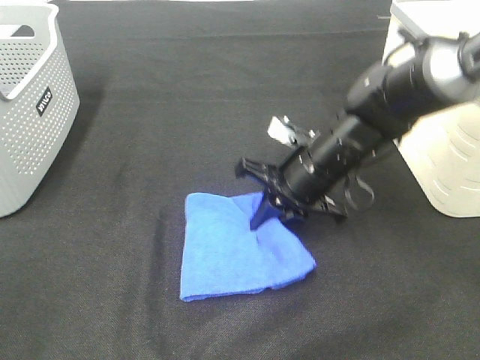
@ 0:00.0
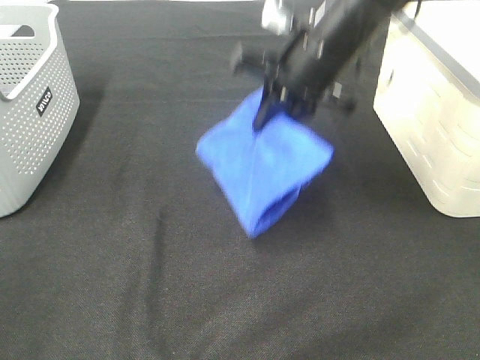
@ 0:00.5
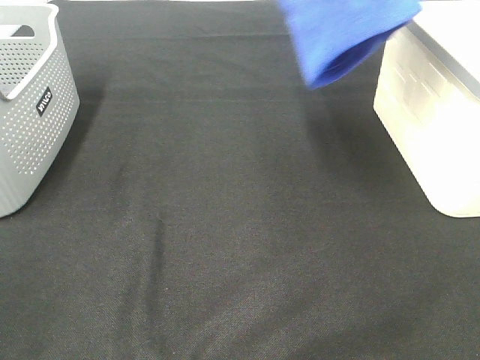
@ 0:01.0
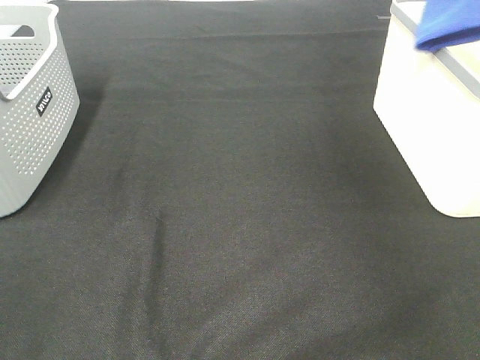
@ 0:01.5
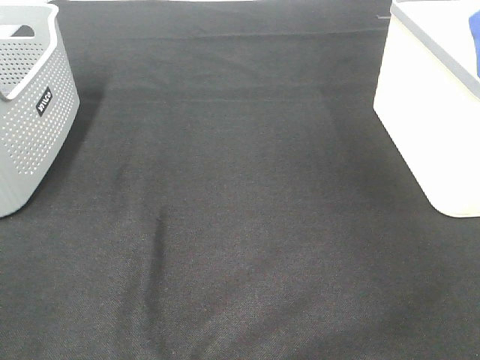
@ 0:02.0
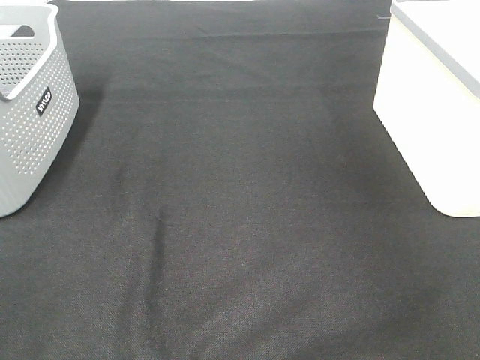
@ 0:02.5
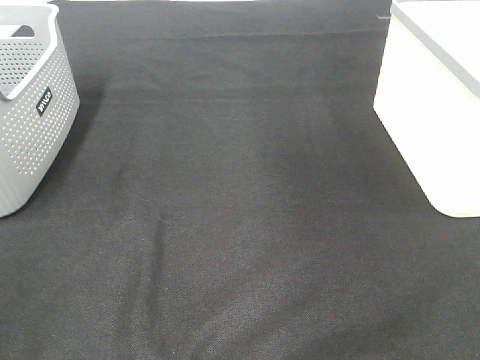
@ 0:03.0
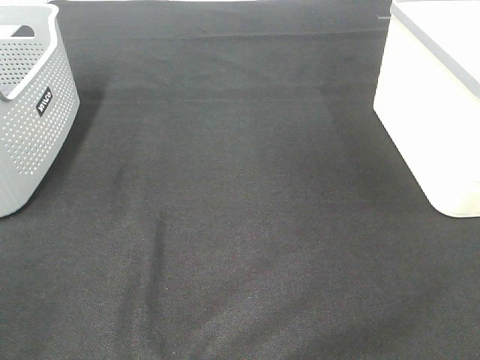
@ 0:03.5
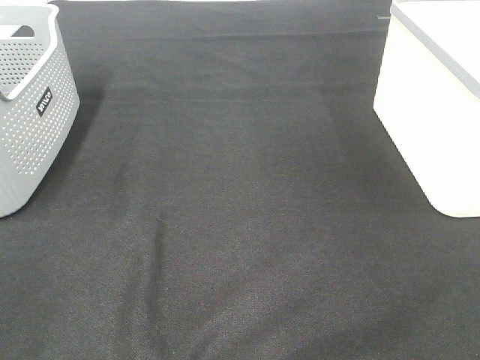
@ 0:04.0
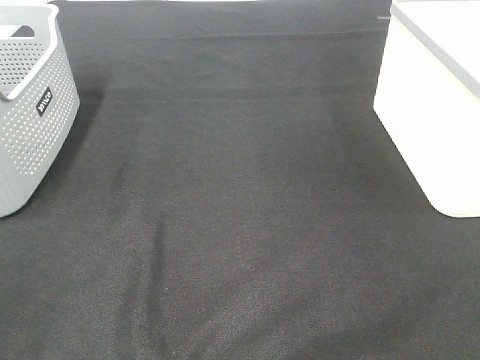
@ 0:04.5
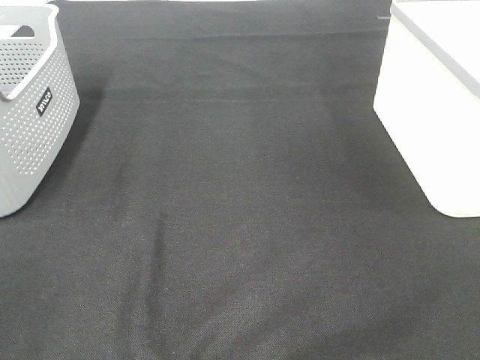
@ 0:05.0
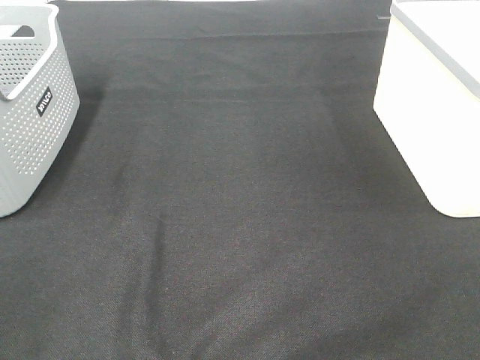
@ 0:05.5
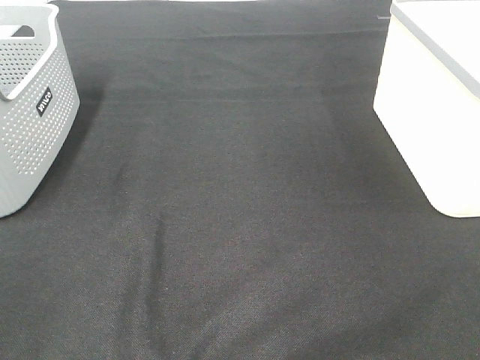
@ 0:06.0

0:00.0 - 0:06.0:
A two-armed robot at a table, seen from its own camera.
Step, 0:00.0 - 0:02.0: Right hand: place the blue towel in right basket.
0:00.0 - 0:02.0: The right gripper heads to the right and upward, covering approximately 40 cm, and opens up.

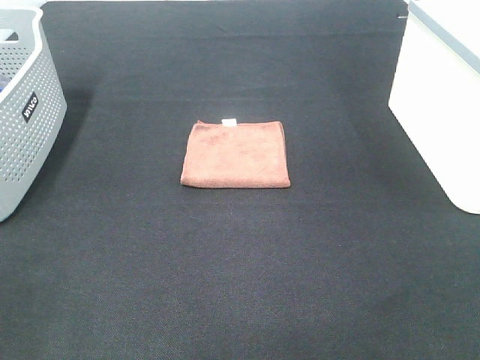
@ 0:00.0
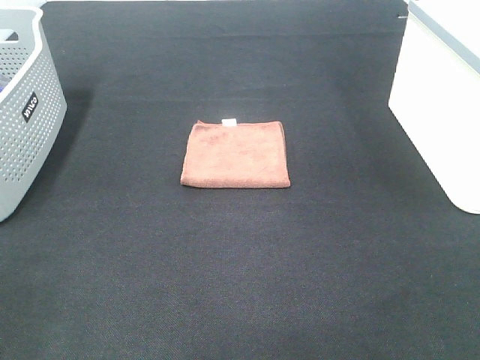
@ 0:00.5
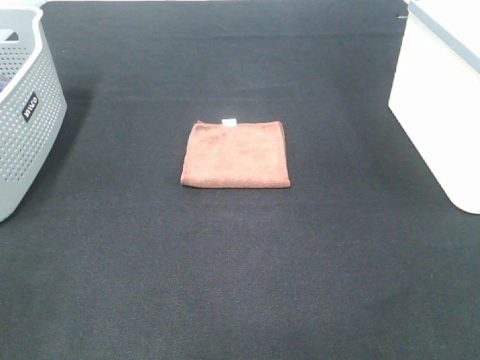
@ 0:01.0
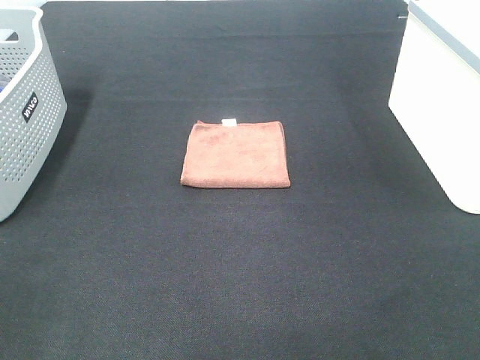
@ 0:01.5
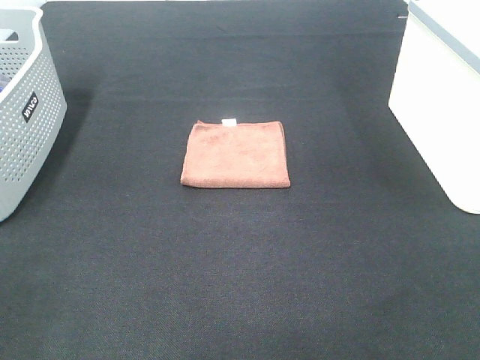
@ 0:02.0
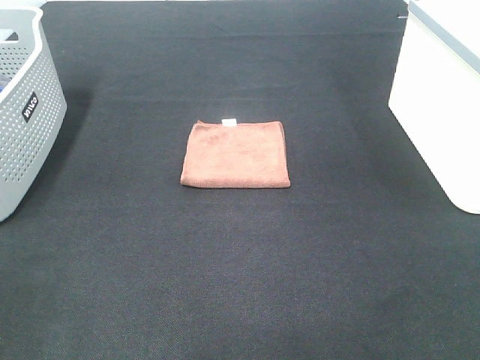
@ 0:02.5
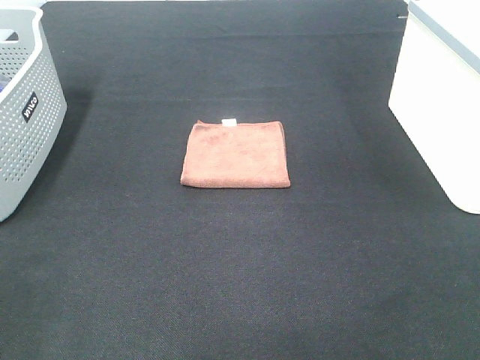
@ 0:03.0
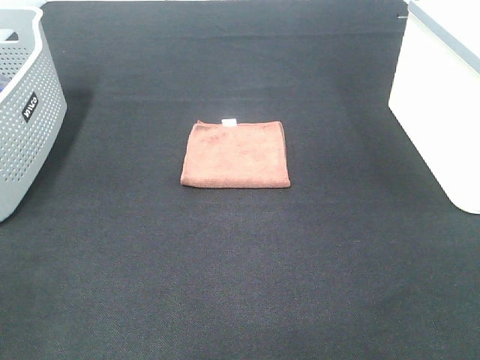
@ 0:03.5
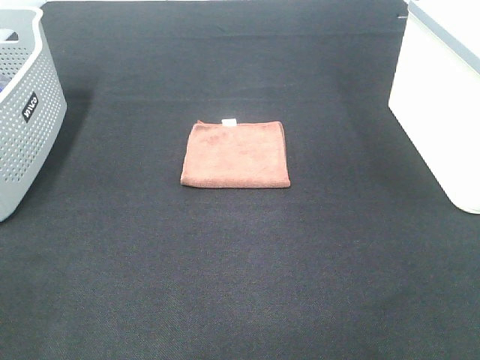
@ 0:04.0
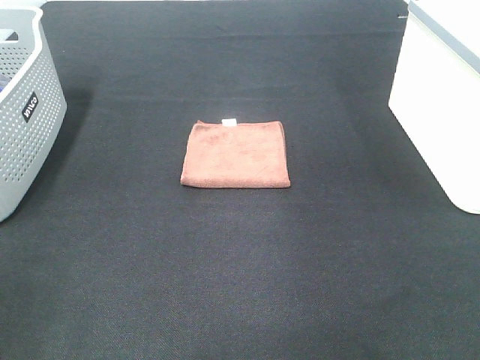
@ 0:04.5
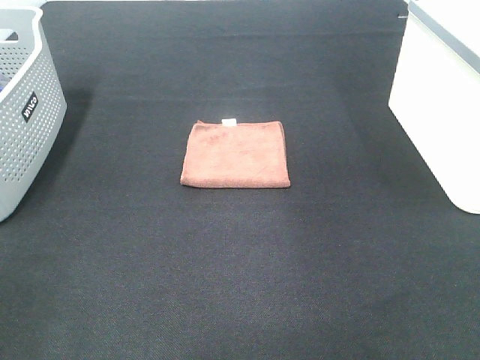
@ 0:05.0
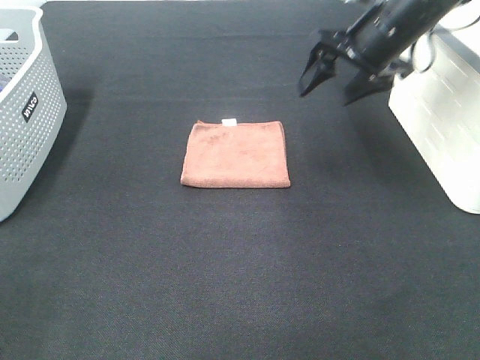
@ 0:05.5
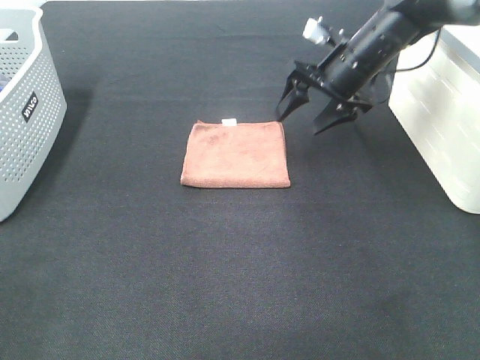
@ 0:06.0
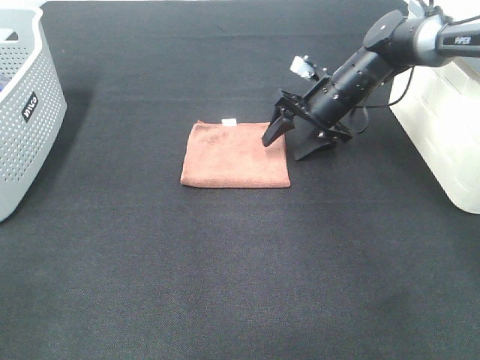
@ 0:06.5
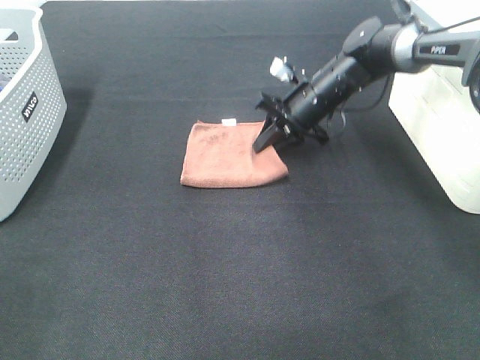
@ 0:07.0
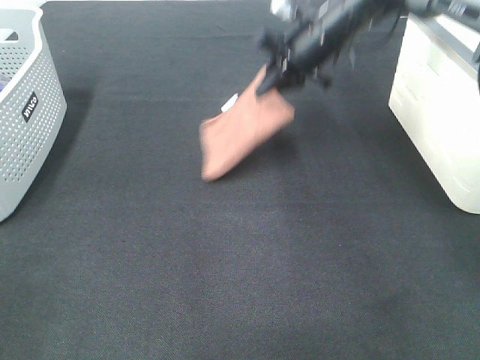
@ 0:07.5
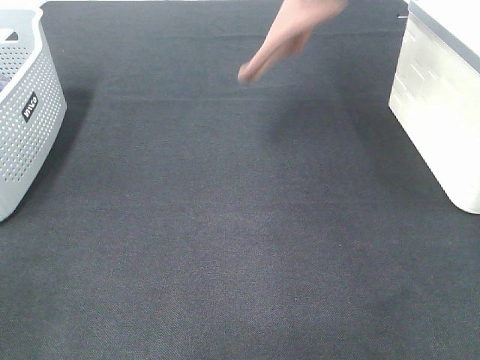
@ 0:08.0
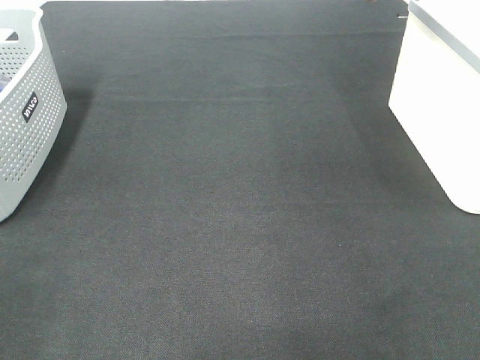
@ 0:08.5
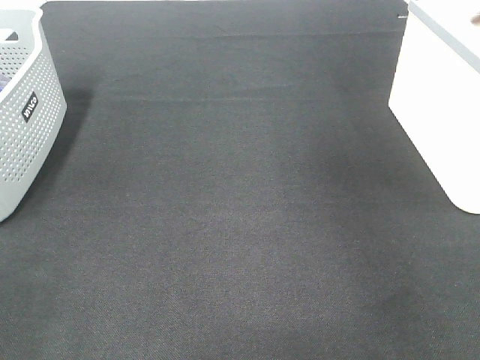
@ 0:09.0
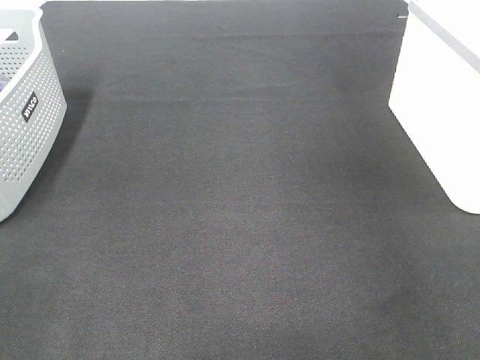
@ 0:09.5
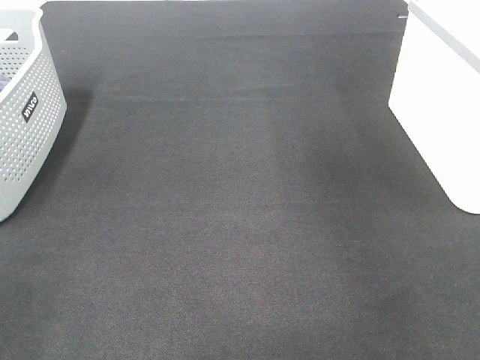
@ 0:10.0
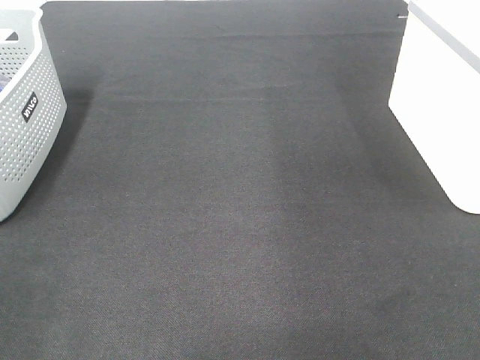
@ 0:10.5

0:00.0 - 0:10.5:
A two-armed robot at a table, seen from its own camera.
Step, 0:00.0 - 0:07.0: Right hand: grab the folded brown towel.
Step, 0:07.5 - 0:09.5: Right hand: place the brown towel in right basket.
0:00.0 - 0:02.0: Neither gripper changes place.
0:04.0 - 0:06.5: The right gripper is displaced forward and downward by approximately 50 cm.
0:06.5 - 0:08.5: The right gripper travels upward by about 35 cm, and closes up.

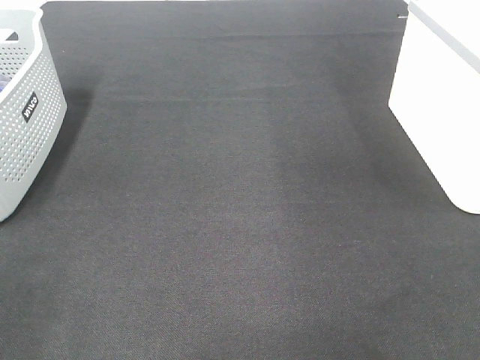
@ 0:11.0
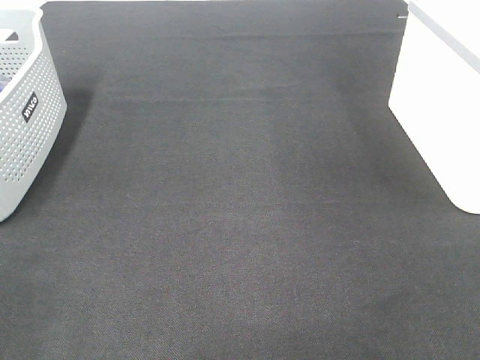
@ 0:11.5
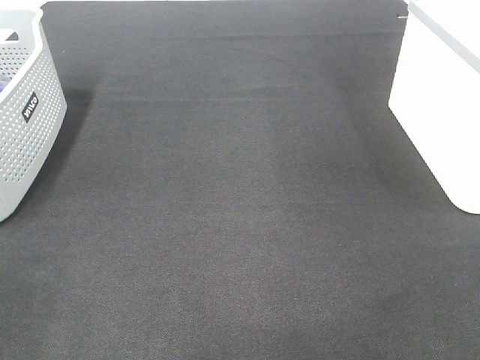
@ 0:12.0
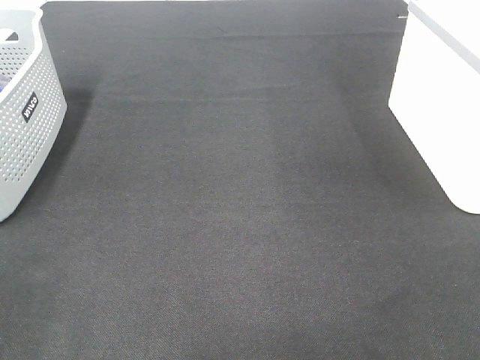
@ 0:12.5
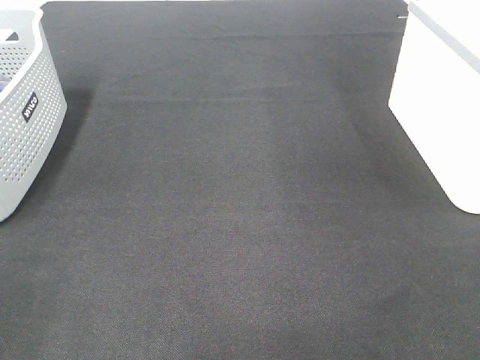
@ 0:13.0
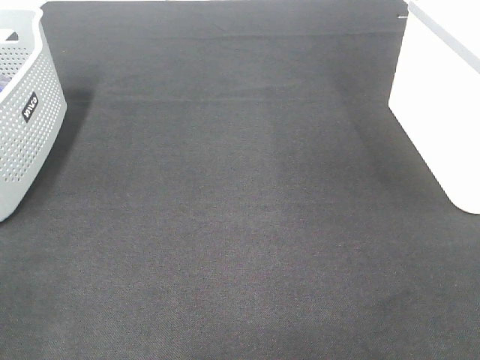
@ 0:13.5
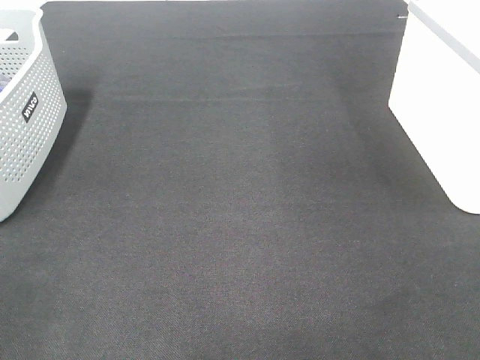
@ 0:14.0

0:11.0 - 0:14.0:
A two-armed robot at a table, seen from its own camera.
0:12.5 - 0:14.0: Both grippers stay about where they are.

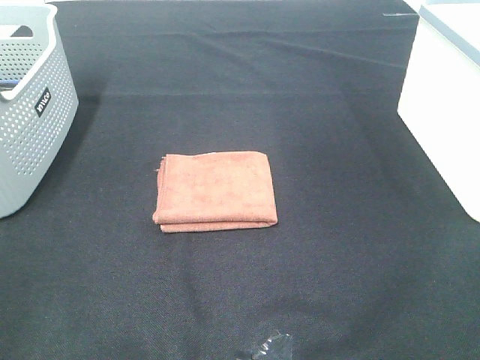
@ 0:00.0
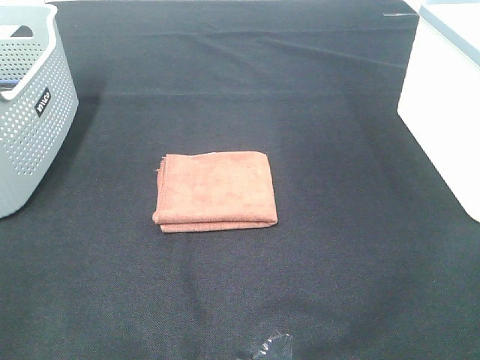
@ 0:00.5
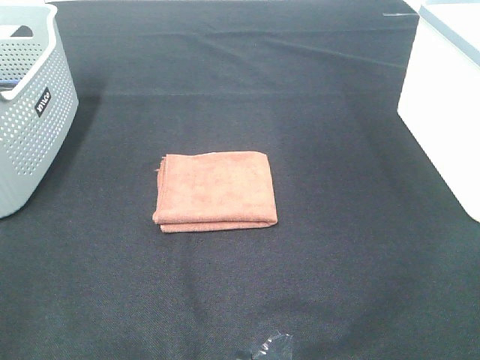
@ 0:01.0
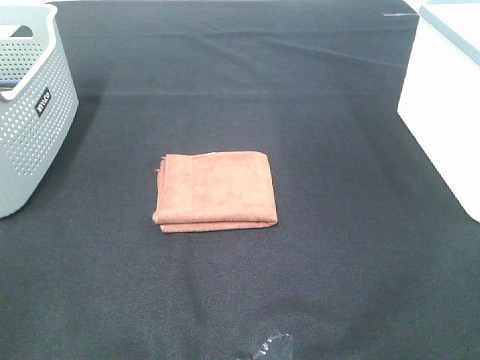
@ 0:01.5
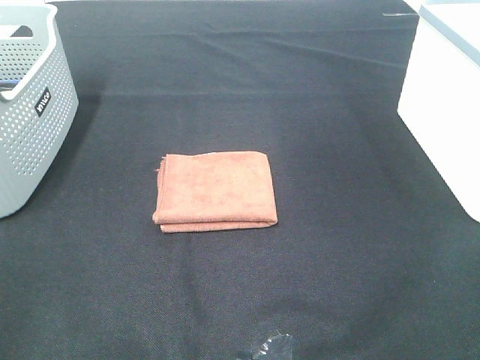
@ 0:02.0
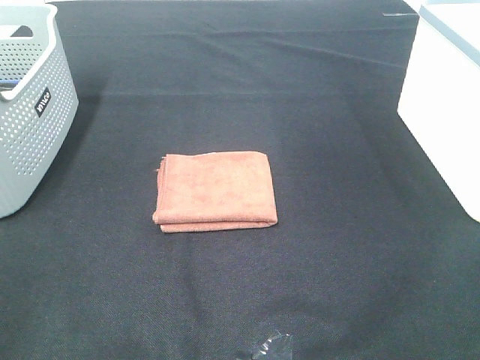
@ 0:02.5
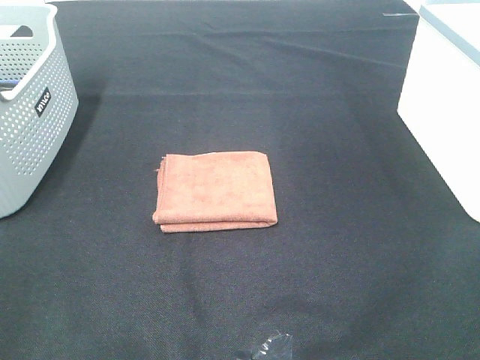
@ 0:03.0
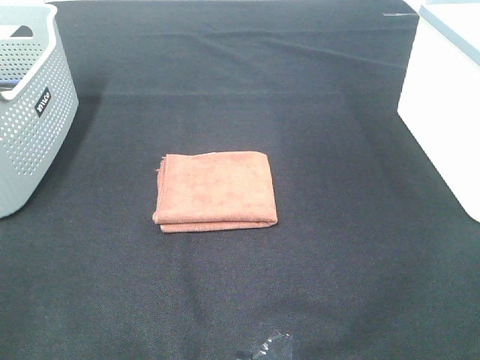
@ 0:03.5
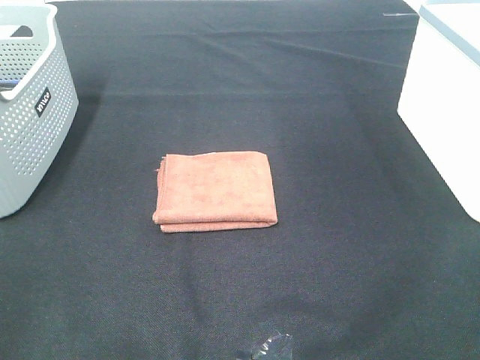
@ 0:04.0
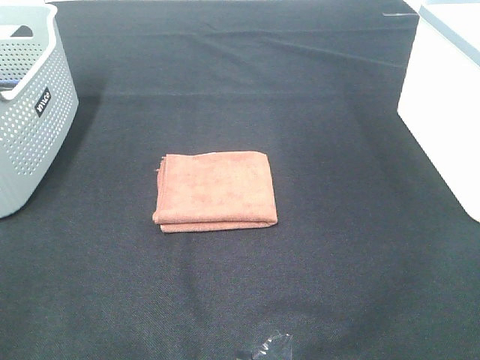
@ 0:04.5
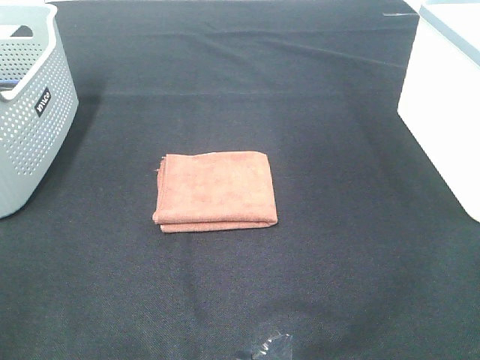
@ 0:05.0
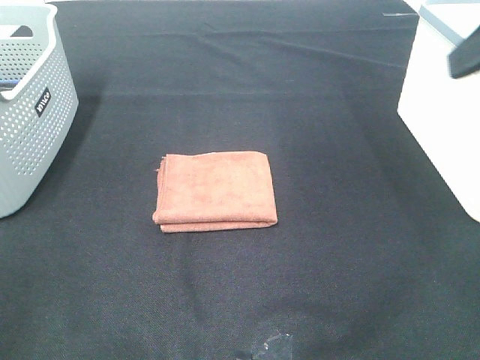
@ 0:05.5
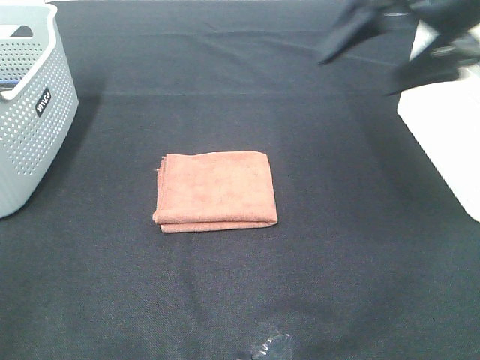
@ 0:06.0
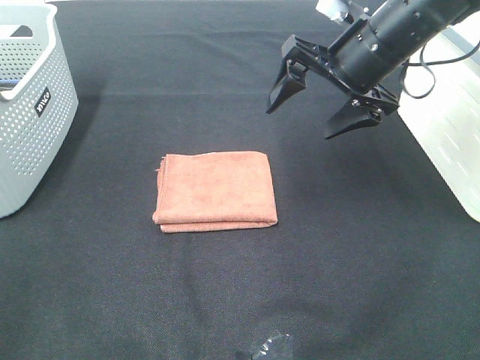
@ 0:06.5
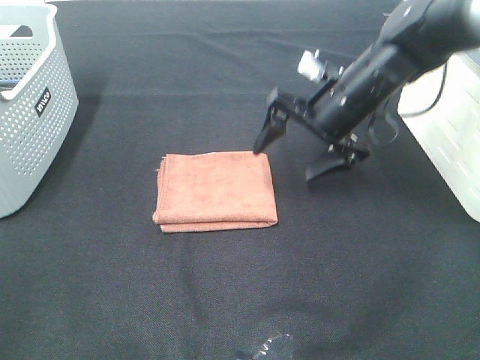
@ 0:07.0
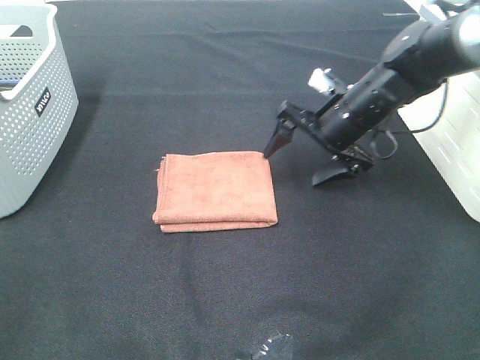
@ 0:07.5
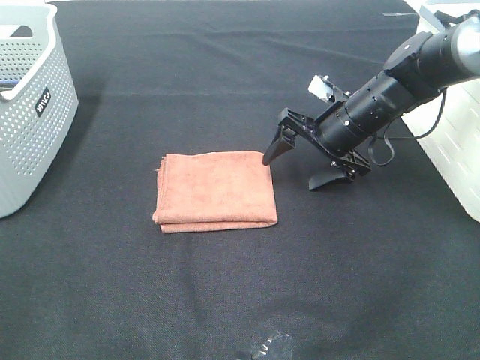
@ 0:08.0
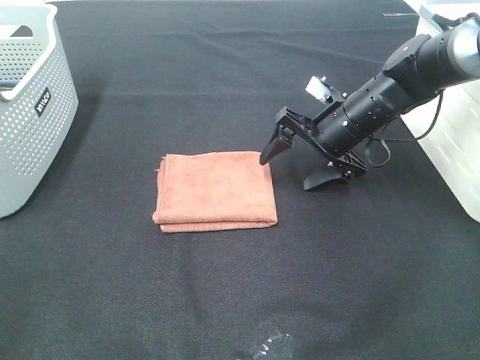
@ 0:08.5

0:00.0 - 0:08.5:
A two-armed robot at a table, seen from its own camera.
0:00.0 - 0:04.0: Both grippers stay put.
0:04.0 - 0:06.5: The right gripper moves forward and to the left, some 40 cm.
0:06.5 - 0:08.5: The right gripper moves downward, some 15 cm.
